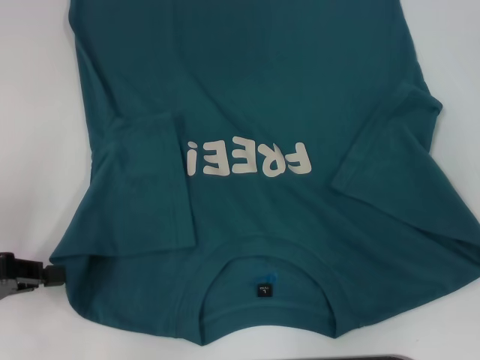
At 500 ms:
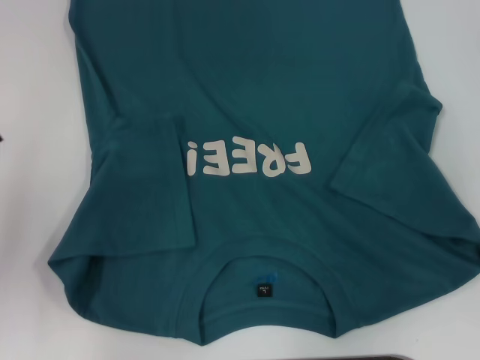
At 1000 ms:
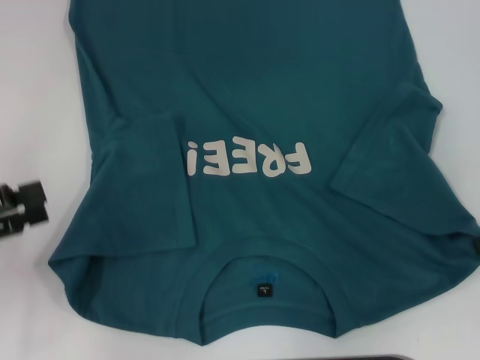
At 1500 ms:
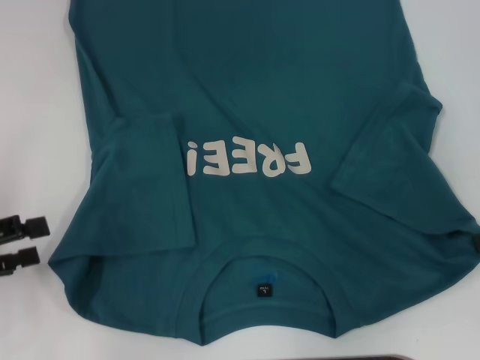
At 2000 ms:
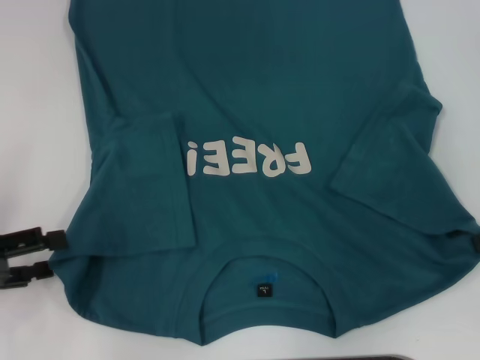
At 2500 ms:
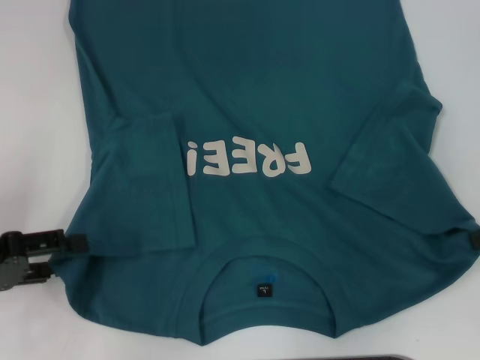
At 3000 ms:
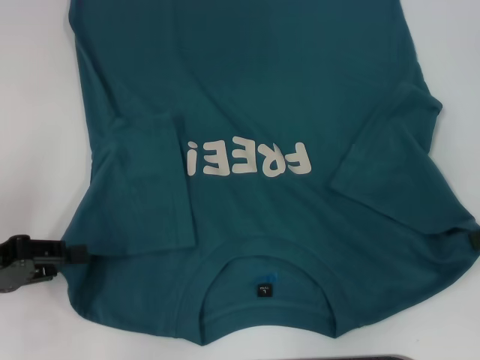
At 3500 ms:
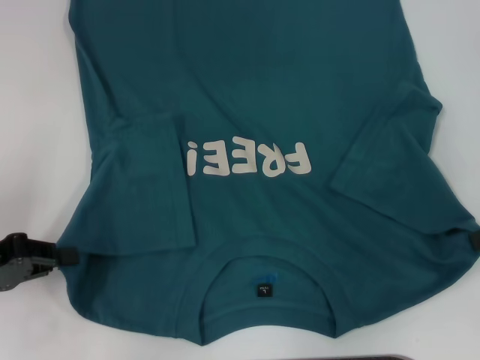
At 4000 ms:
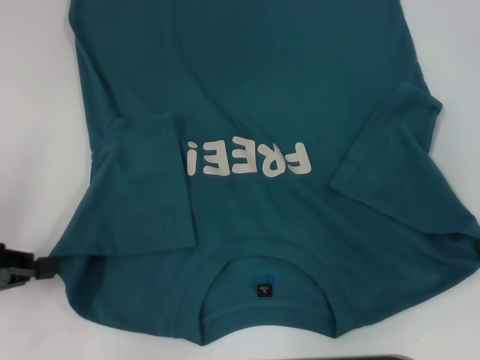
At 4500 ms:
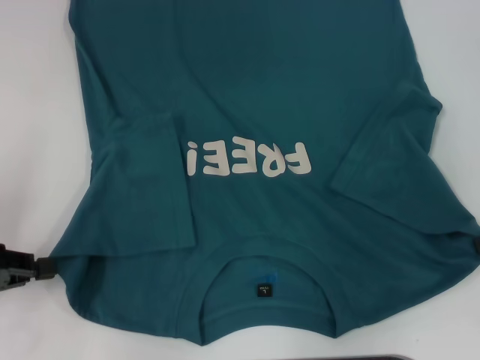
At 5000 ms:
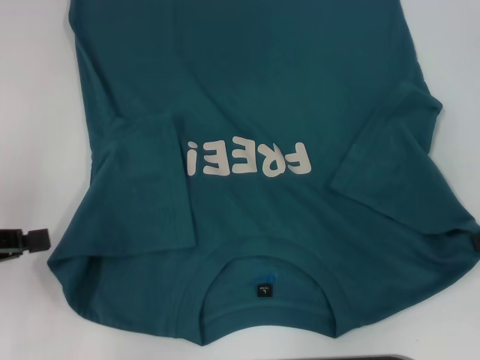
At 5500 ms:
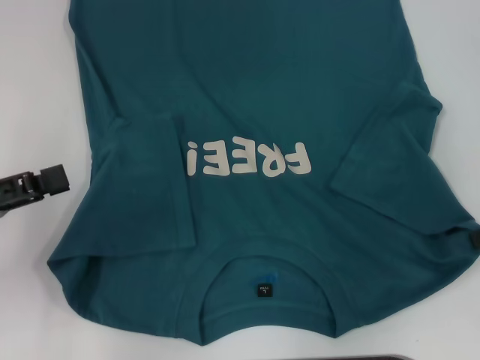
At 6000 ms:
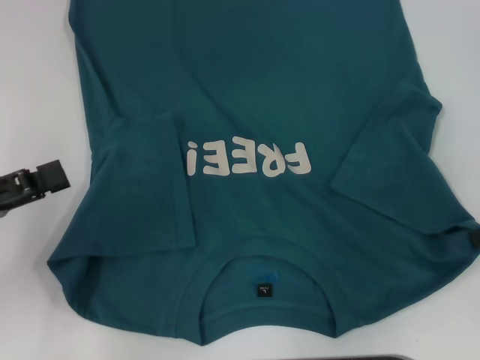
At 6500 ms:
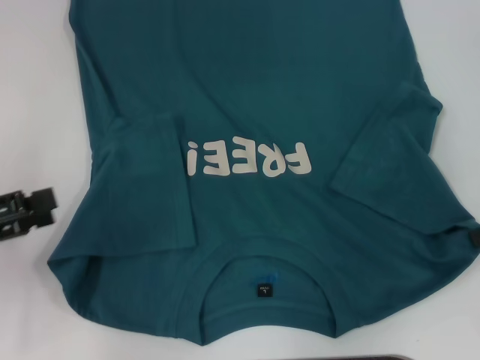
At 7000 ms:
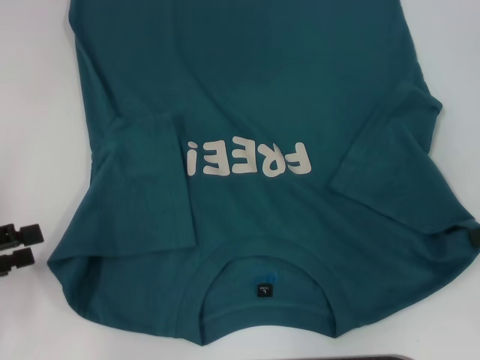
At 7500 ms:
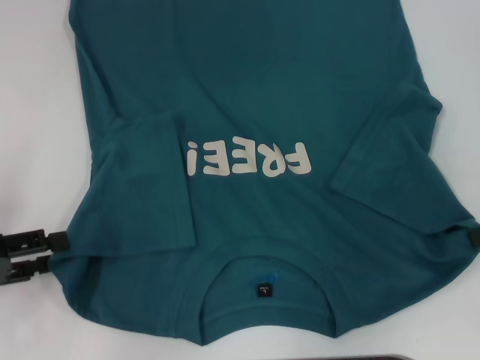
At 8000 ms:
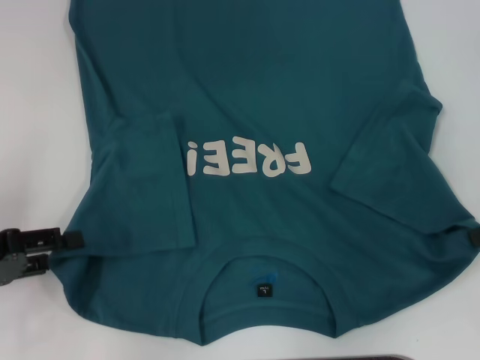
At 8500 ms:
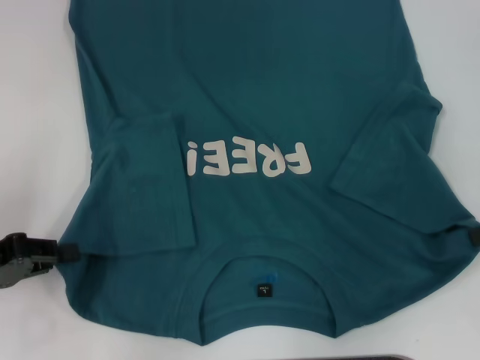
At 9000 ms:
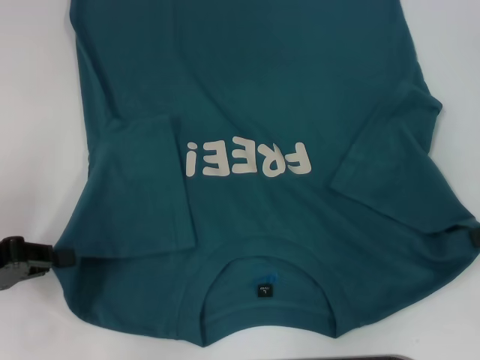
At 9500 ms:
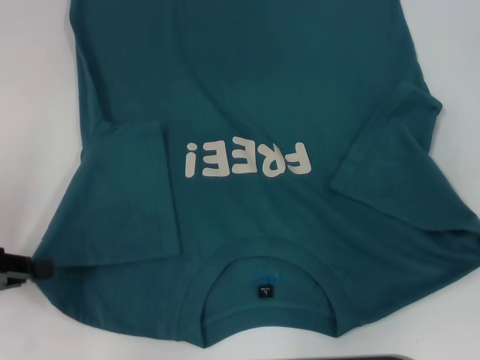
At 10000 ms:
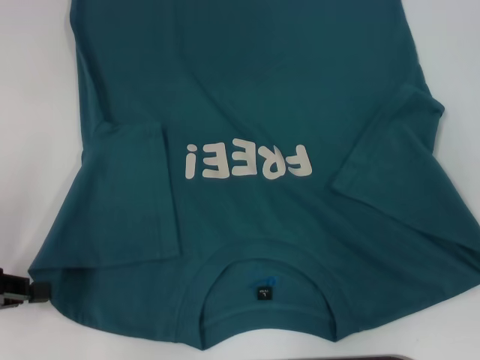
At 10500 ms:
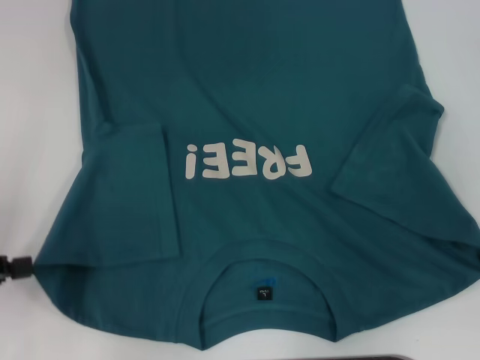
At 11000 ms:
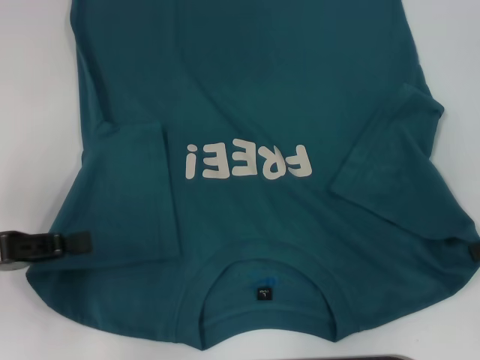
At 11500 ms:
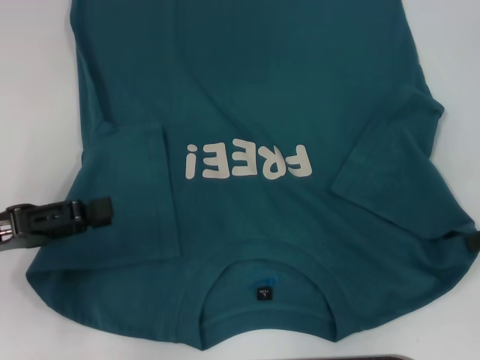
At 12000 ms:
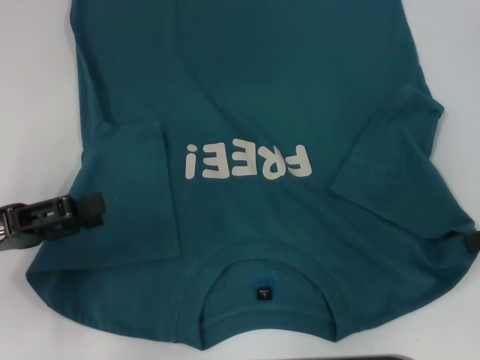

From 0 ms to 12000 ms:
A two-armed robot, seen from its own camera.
From 0 ms to 2000 ms: The left gripper opens.
From 2000 ms to 4000 ms: The left gripper closes.
From 4000 ms to 6000 ms: The left gripper opens.
From 8000 ms to 10000 ms: The left gripper closes up.
From 10000 ms to 12000 ms: The left gripper opens its fingers.

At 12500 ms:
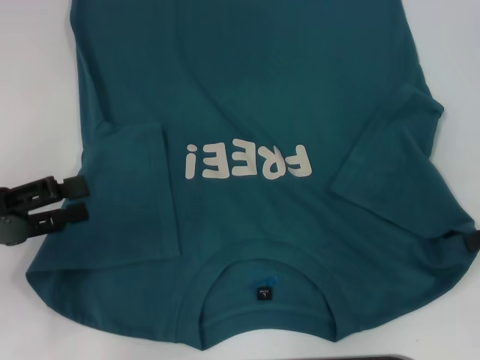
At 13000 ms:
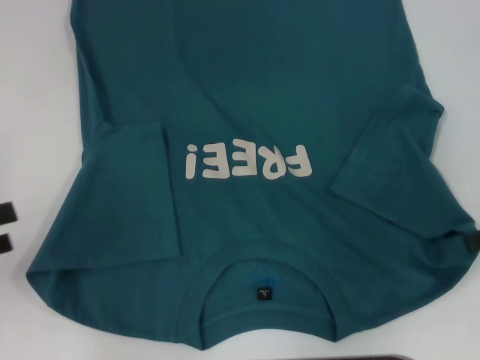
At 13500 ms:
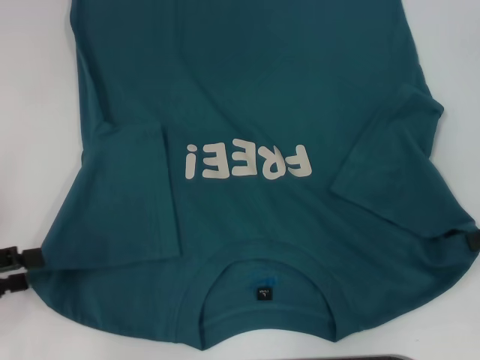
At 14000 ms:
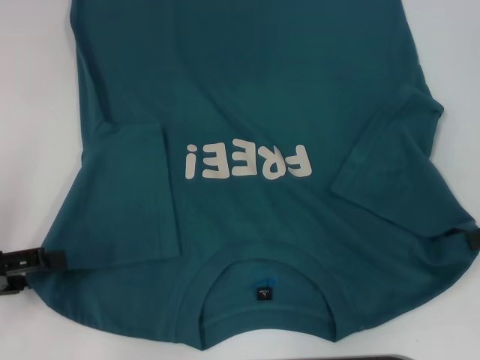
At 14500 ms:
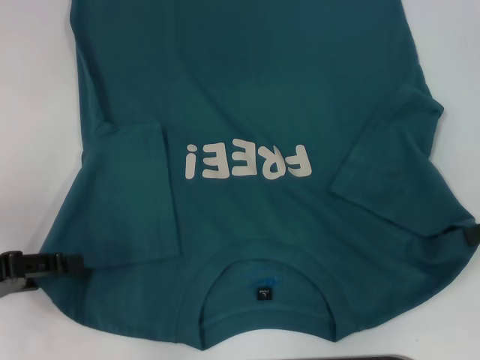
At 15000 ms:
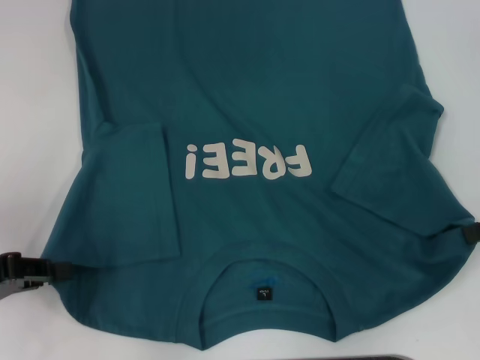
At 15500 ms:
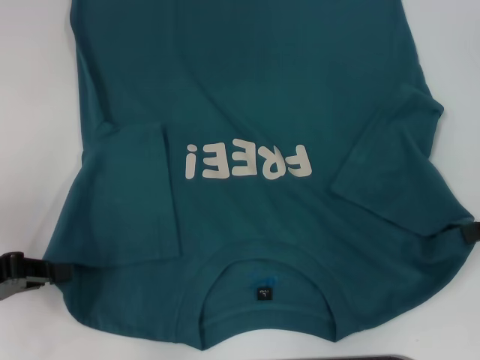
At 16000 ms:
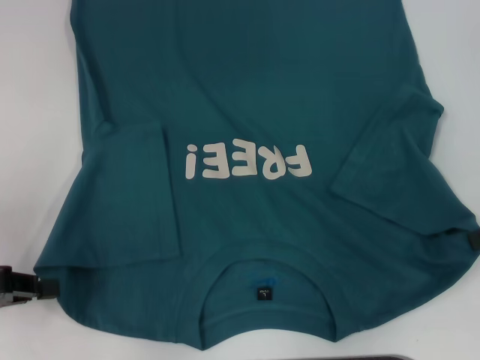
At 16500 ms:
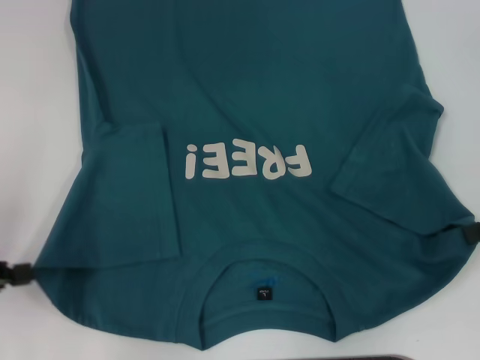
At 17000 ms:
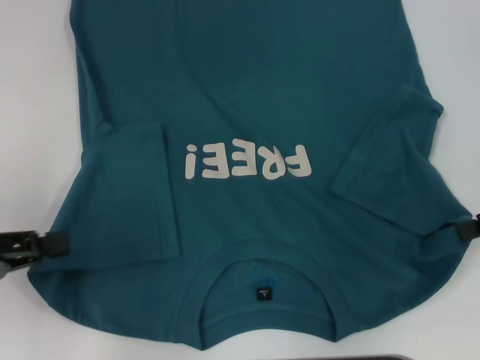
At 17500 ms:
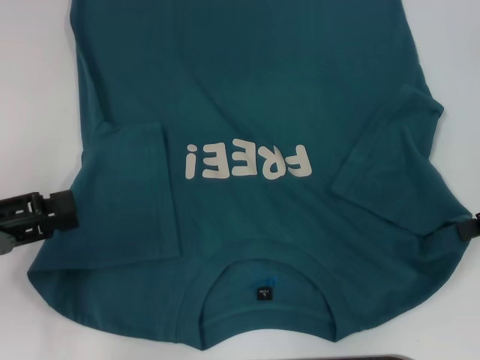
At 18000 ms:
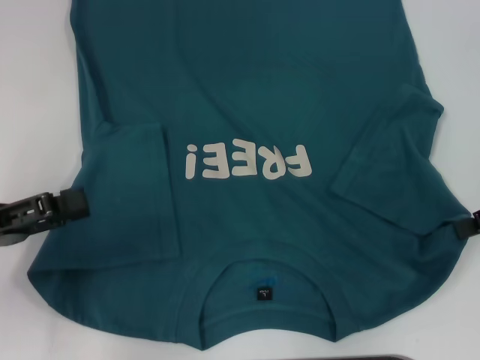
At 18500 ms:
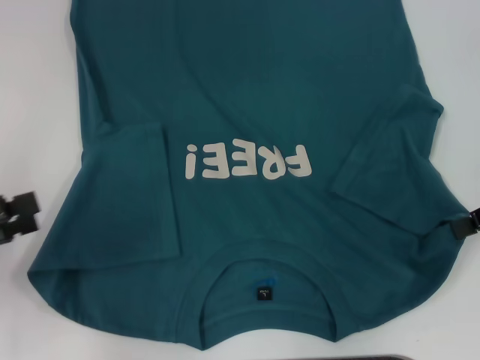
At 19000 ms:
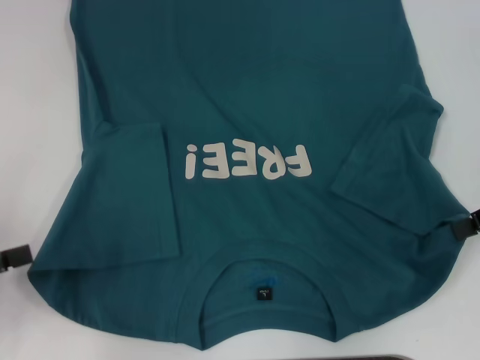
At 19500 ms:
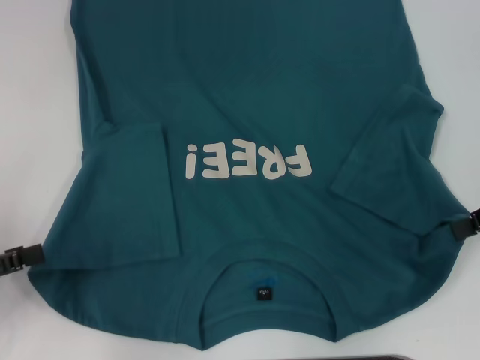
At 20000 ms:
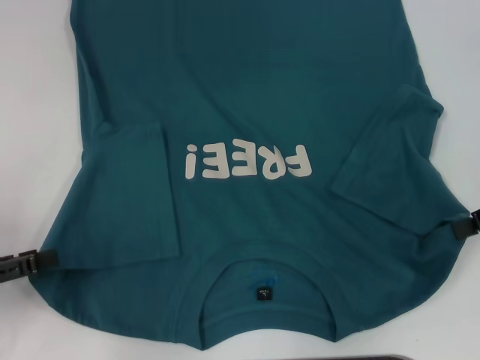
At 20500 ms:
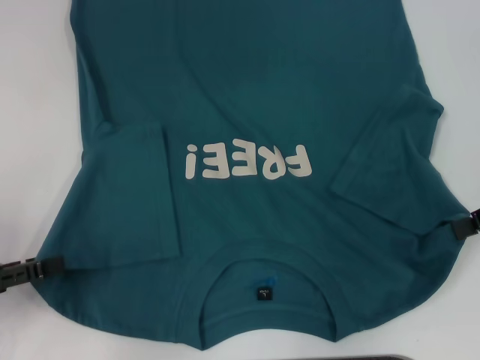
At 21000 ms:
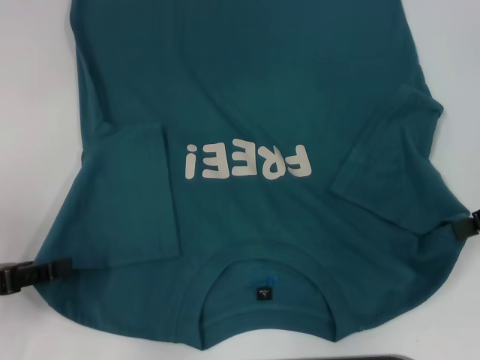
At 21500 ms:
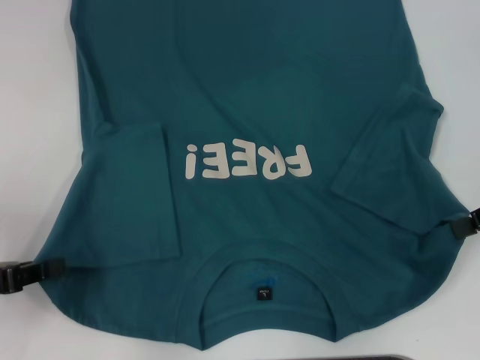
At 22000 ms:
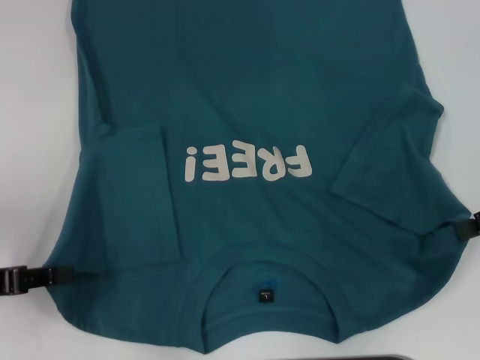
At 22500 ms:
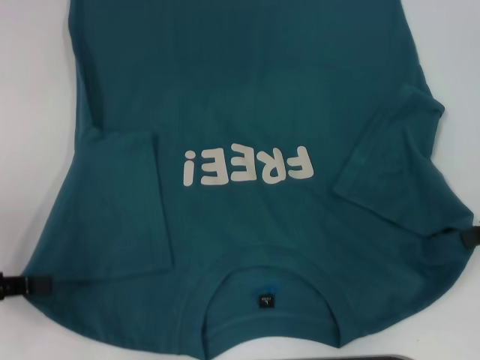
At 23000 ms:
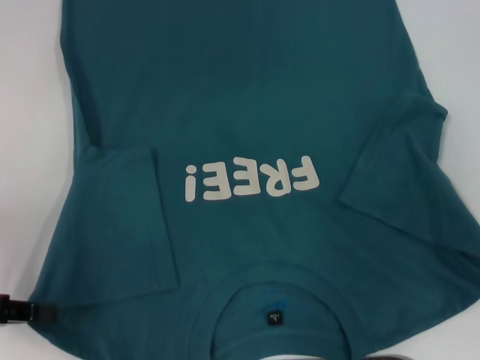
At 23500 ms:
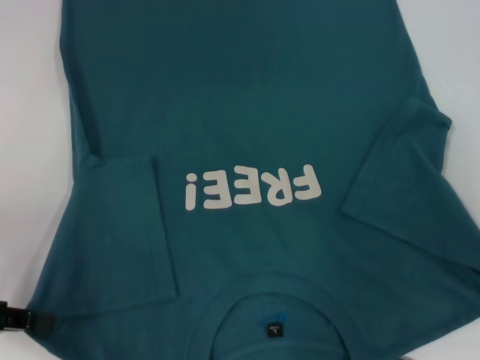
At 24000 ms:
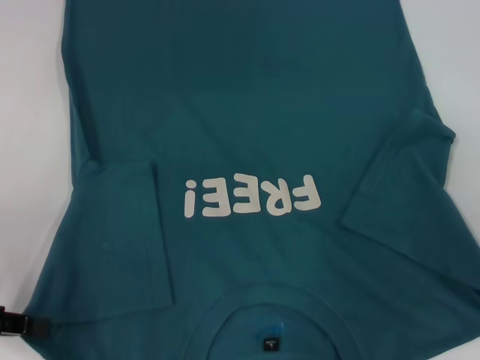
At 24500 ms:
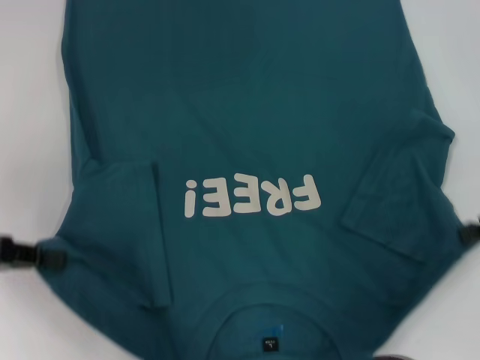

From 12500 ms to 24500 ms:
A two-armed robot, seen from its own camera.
From 14500 ms to 16500 ms: The left gripper closes.
From 16500 ms to 18500 ms: The left gripper opens its fingers.
From 20500 ms to 22500 ms: The left gripper closes up.
From 22500 ms to 24500 ms: The left gripper moves some 5 cm.

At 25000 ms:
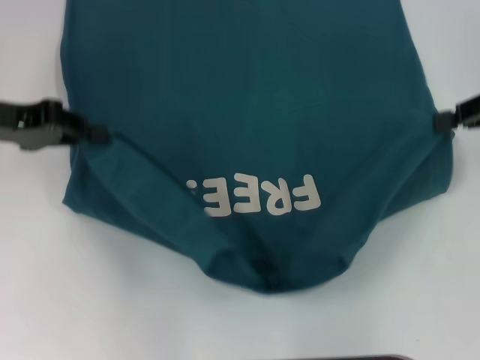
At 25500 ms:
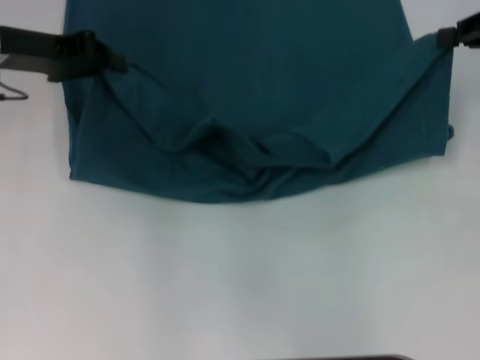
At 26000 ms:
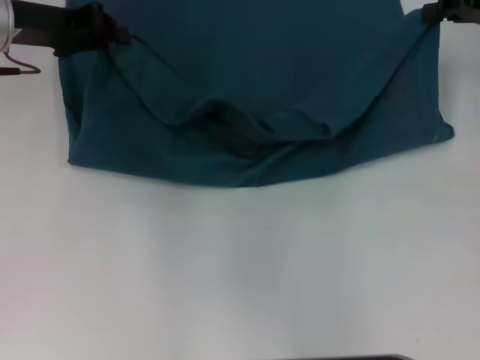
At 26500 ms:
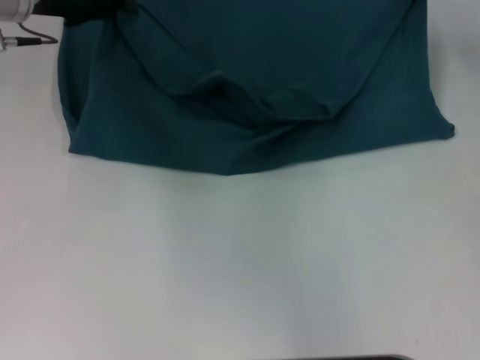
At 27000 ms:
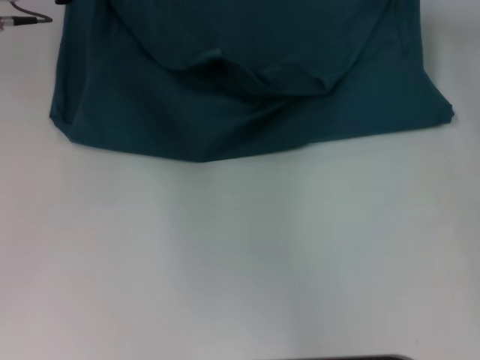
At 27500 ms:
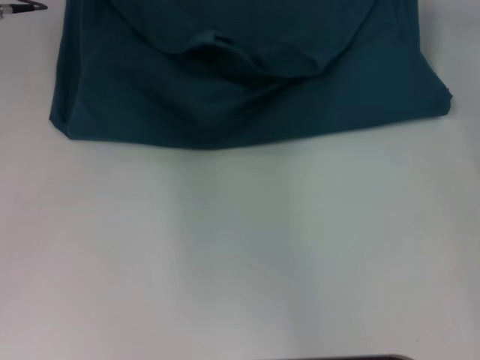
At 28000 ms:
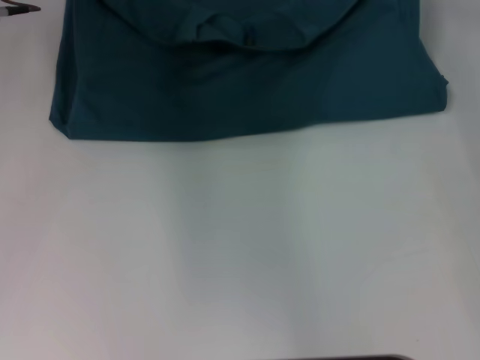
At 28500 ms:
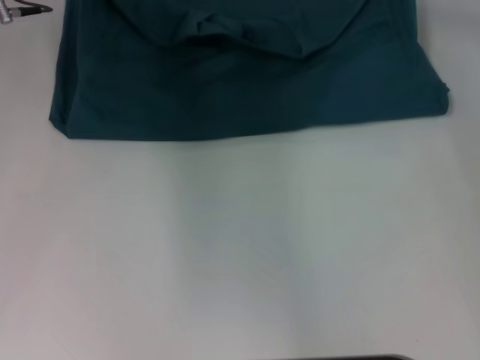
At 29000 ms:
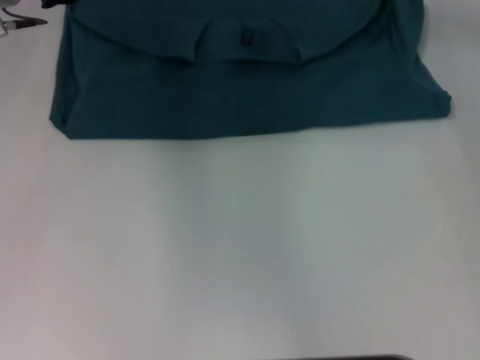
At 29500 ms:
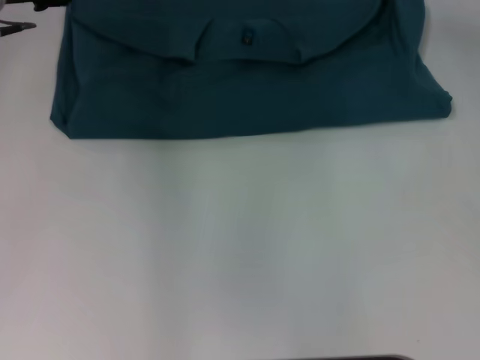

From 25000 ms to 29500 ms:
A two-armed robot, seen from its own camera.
Step, from 25000 ms to 29000 ms: Fold the clothes to the left.
Step, from 25000 ms to 29000 ms: Fold the clothes to the right.
From 25000 ms to 27000 ms: The right gripper moves forward and to the left, about 15 cm; the left gripper is displaced forward and to the right by approximately 15 cm.
From 27000 ms to 29500 ms: The right gripper opens up, while the left gripper opens its fingers.
